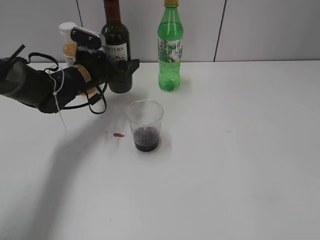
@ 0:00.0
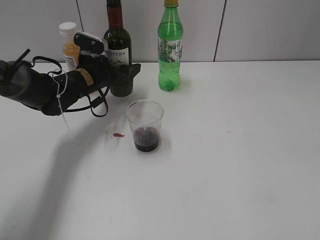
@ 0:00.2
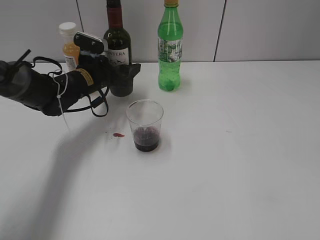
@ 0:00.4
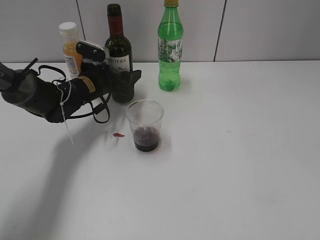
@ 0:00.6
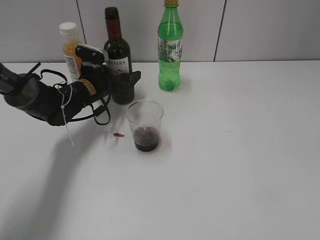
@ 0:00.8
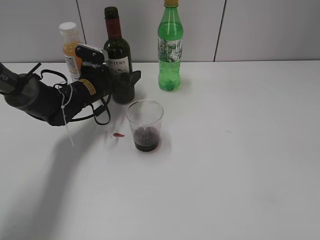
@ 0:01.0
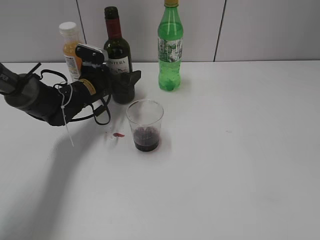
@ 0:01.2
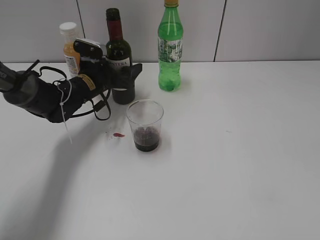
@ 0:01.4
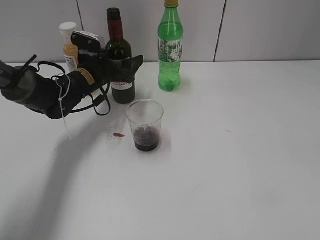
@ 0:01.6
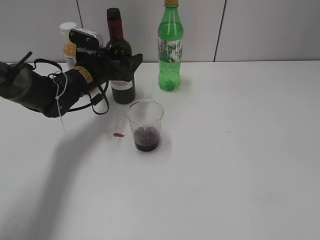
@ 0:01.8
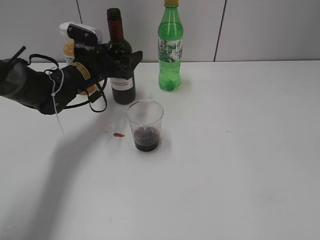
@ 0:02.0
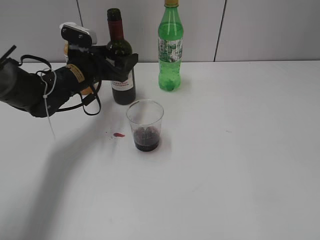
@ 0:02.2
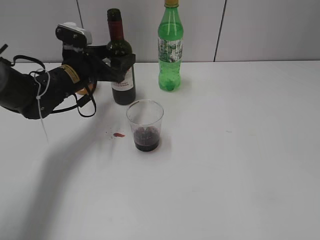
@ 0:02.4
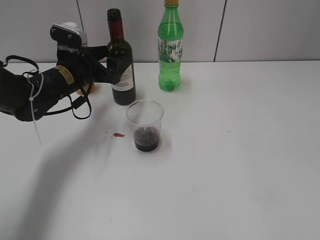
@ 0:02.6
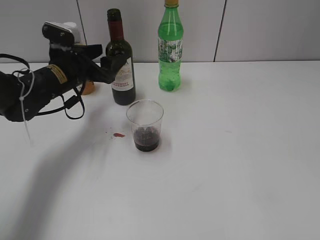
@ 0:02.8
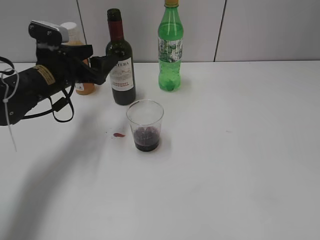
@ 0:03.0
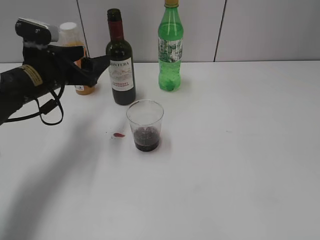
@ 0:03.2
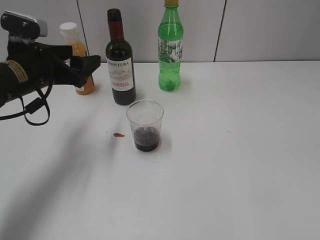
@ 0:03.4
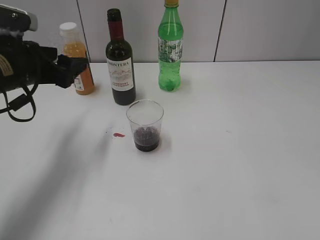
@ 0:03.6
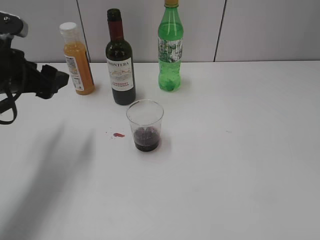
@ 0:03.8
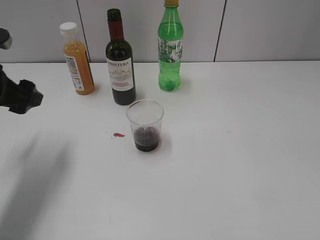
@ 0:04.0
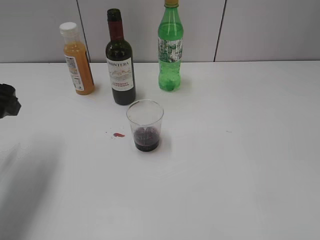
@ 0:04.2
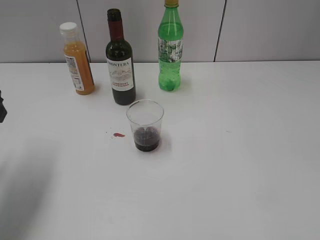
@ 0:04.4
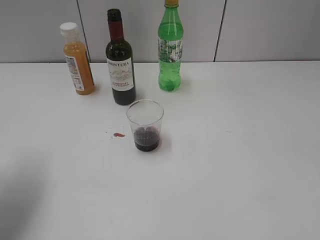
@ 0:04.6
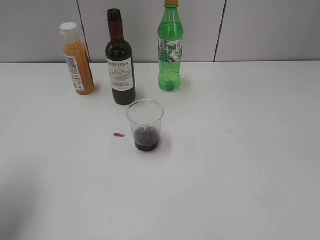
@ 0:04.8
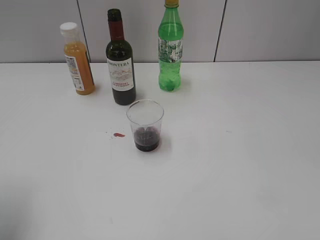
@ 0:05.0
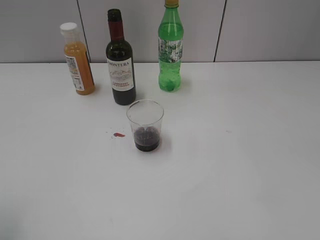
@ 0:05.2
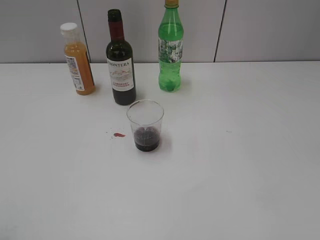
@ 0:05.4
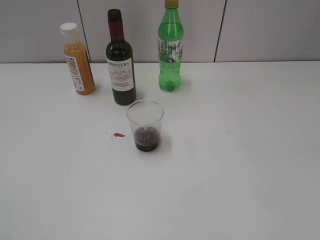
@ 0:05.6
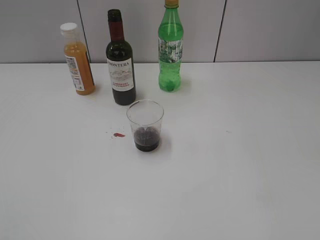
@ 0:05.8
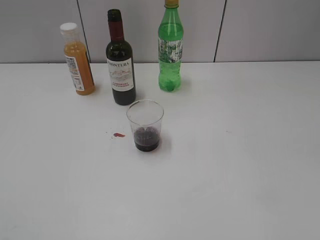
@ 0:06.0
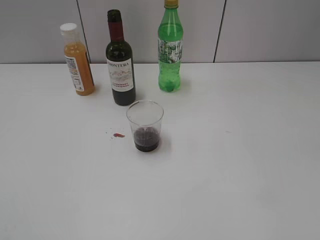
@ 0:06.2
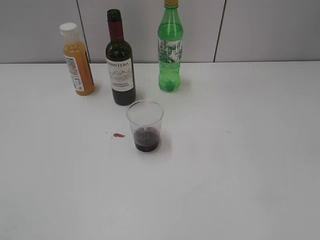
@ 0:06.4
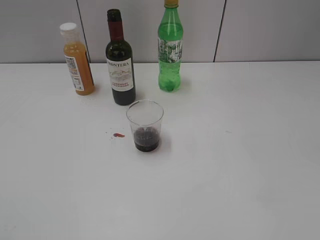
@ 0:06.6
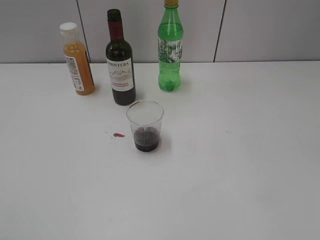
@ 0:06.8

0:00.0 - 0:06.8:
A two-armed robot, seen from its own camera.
Step, 0:00.0 - 0:02.6: Place the red wine bottle on the table with left gripper.
0:00.0 - 0:01.4: The grippers make only small movements.
0:01.4 - 0:02.8: The left gripper goes some 5 cm upward.
0:02.8 - 0:04.0: The left gripper travels backward, to the left and upward by roughly 15 cm.
0:04.0 - 0:05.4: The left gripper heads backward, covering roughly 20 cm.
